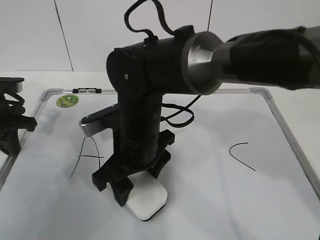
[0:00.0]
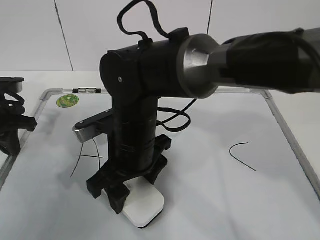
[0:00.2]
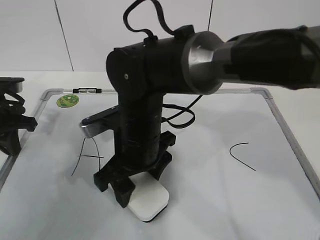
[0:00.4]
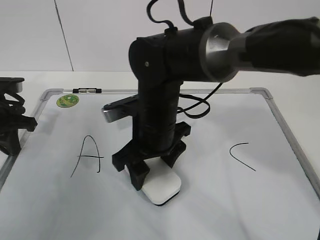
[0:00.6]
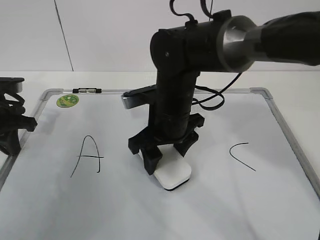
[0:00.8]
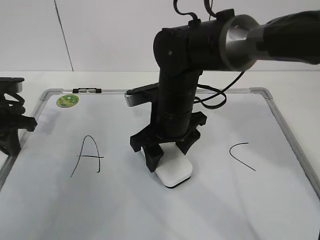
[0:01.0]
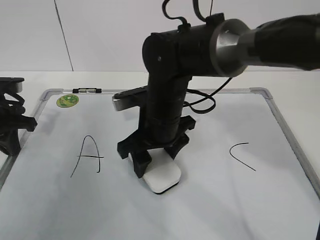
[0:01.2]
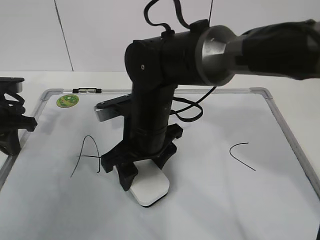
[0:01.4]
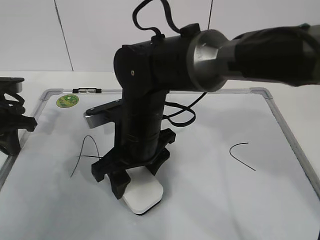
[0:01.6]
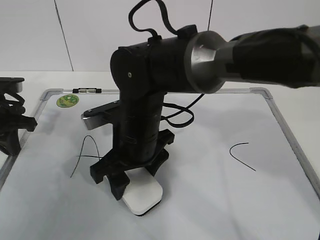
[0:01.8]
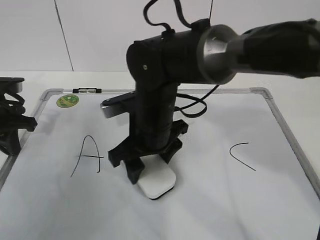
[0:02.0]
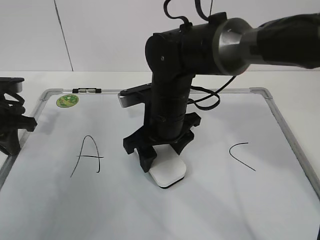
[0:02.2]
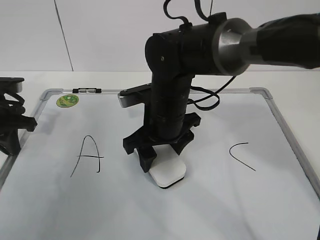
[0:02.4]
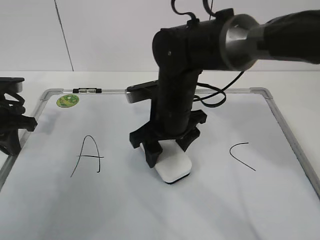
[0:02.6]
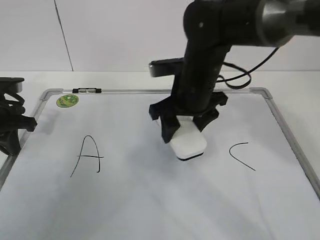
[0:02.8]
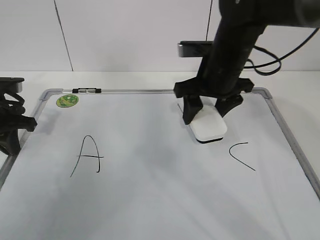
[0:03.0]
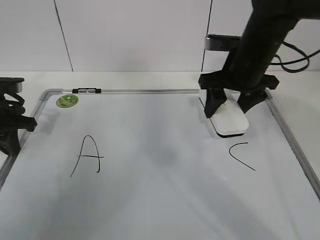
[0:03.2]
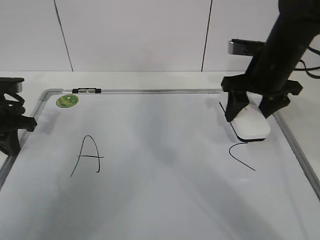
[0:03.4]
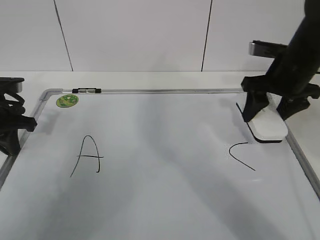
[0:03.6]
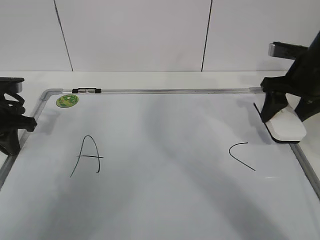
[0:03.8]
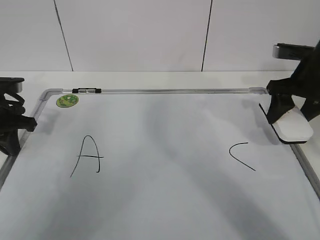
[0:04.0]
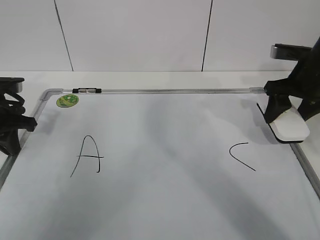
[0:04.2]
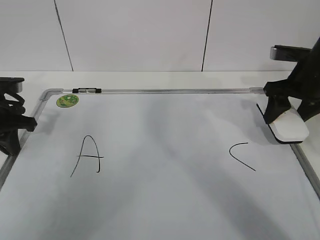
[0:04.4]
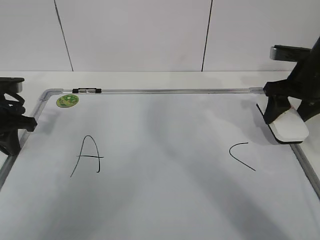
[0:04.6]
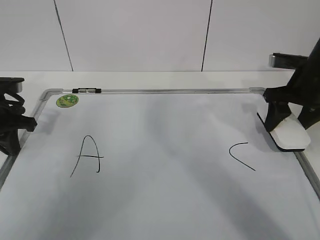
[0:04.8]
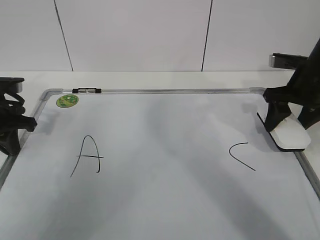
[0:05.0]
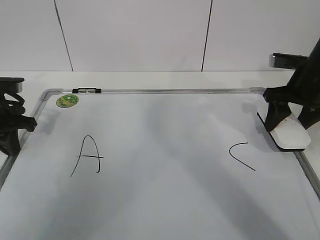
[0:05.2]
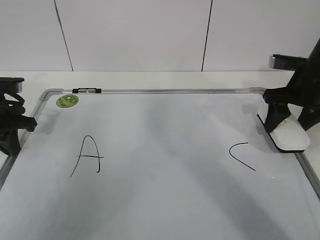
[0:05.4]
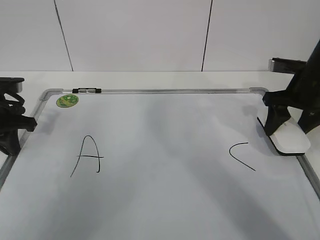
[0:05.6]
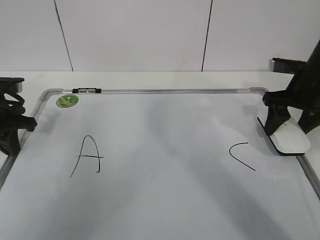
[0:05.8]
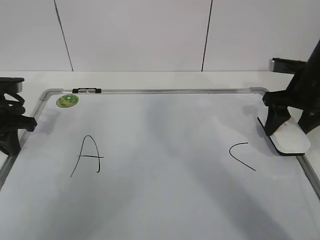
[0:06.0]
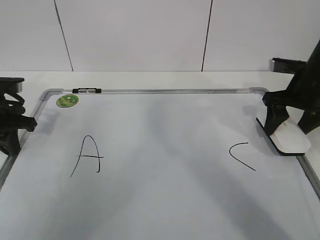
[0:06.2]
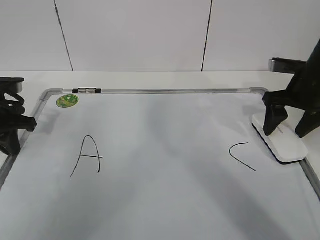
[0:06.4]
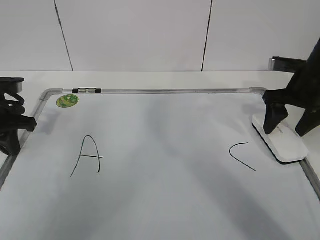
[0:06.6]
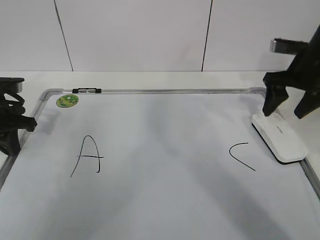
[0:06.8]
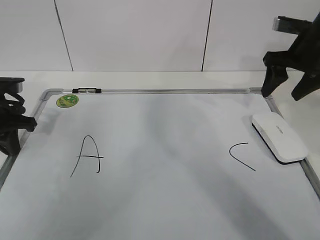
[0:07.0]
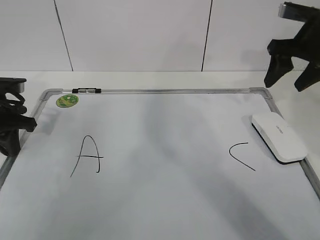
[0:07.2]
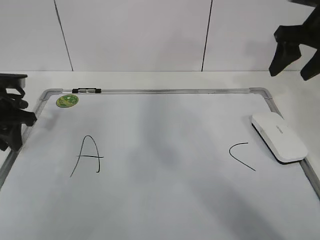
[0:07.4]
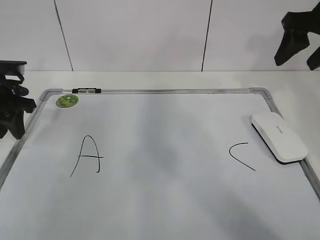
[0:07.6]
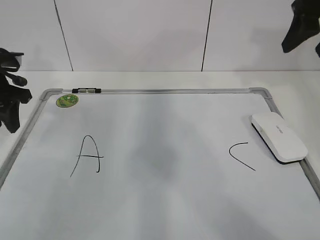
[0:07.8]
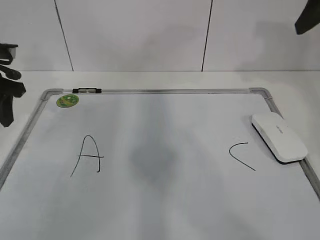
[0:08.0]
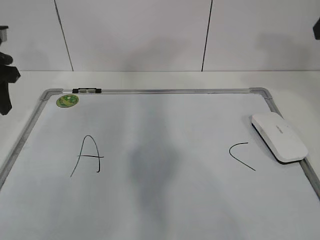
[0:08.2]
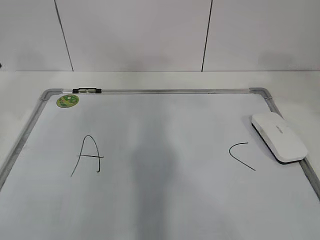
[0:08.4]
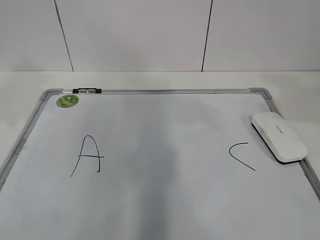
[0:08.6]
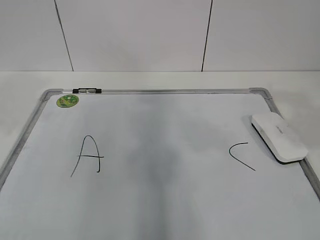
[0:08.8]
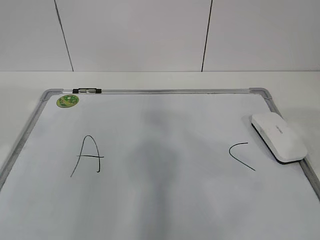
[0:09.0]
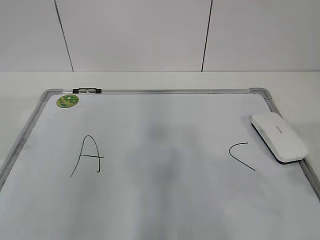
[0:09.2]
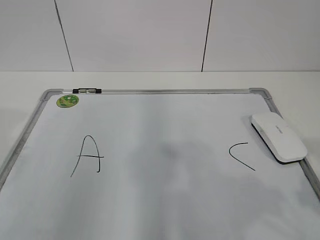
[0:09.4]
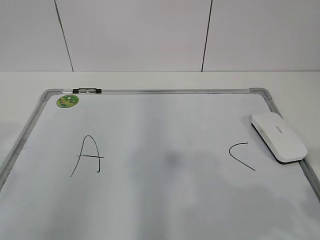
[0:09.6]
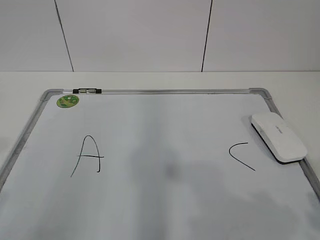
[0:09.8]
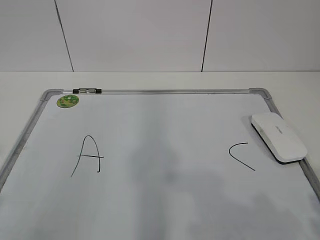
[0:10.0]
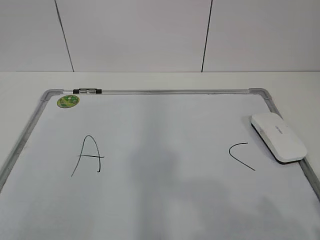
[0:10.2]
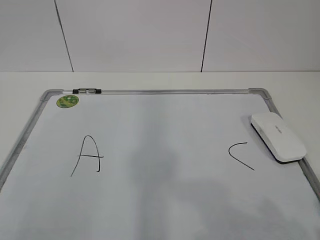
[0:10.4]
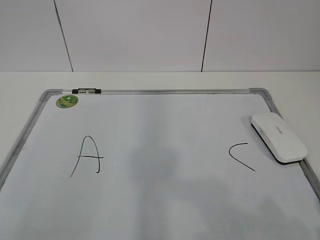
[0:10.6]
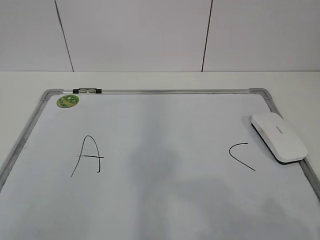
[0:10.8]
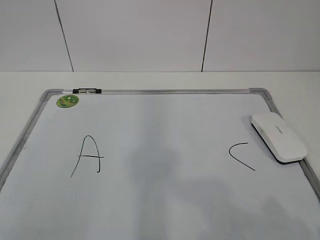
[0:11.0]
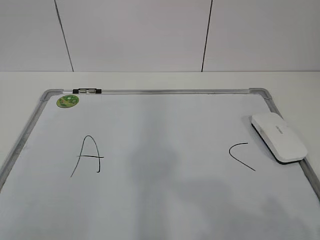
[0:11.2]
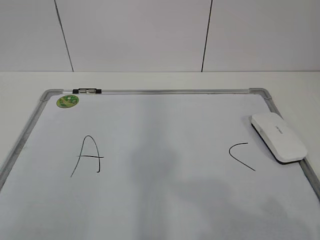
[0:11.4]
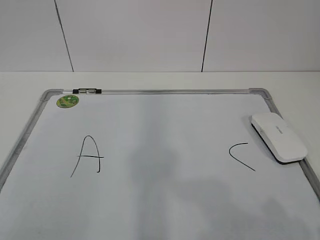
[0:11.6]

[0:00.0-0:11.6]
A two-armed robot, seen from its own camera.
Task of the whole recording: pick up the eraser on the blackboard and erase the letter "B".
0:01.4 to 0:02.8: The right gripper is displaced to the right and forward by about 10 cm.
0:02.8 to 0:04.4: The right gripper goes roughly 20 cm to the right.
0:04.4 to 0:05.8: There are only small adjustments of the grippers.
0:05.8 to 0:07.2: The right gripper travels upward by some 10 cm, and opens up.
0:07.2 to 0:08.8: The left gripper shifts some 20 cm upward and backward, and opens its fingers; the right gripper goes roughly 25 cm backward.
0:08.8 to 0:10.2: The right gripper heads backward and downward, covering approximately 15 cm.
0:10.2 to 0:11.6: The two grippers keep their place.
